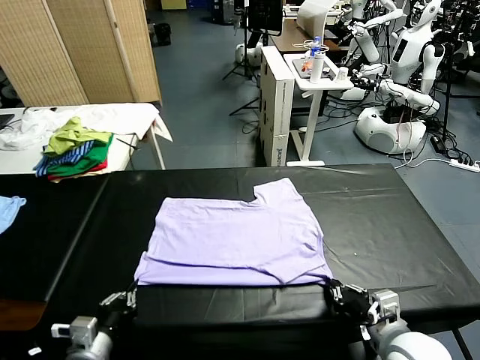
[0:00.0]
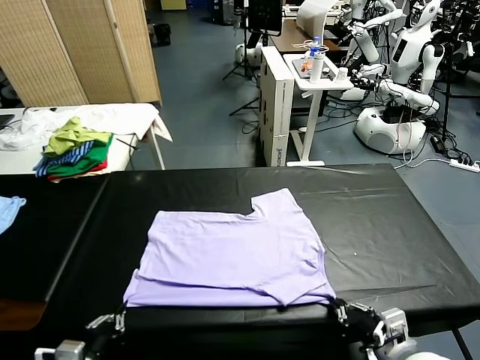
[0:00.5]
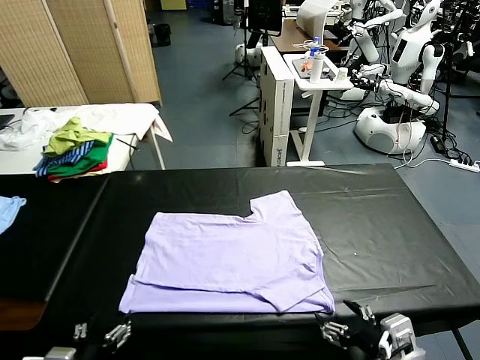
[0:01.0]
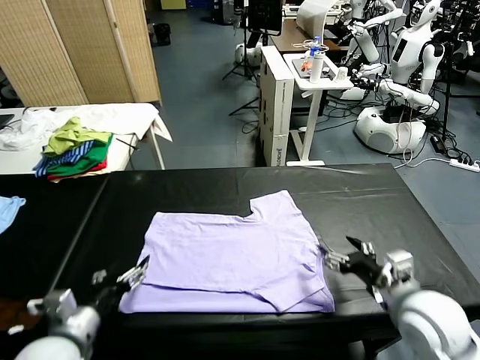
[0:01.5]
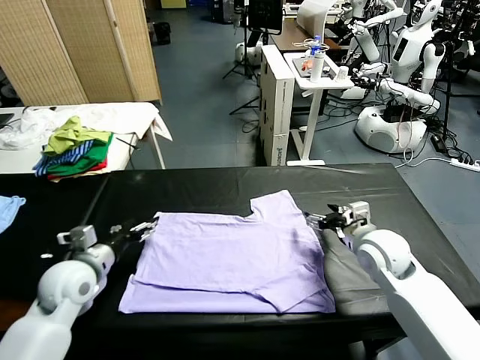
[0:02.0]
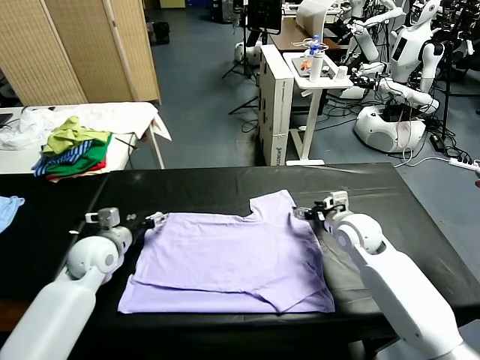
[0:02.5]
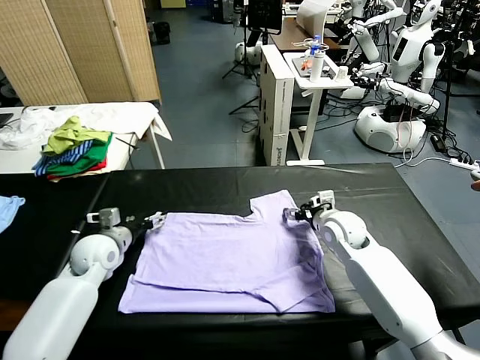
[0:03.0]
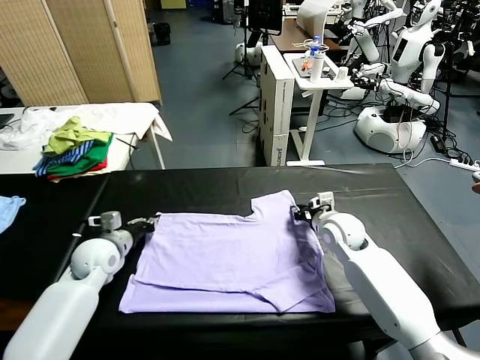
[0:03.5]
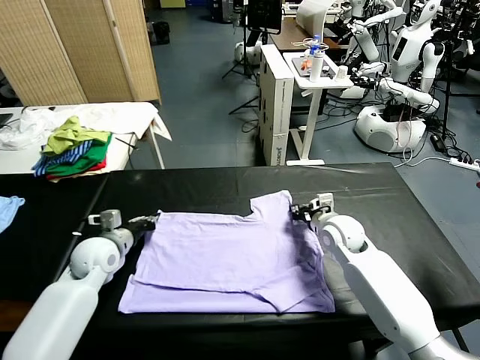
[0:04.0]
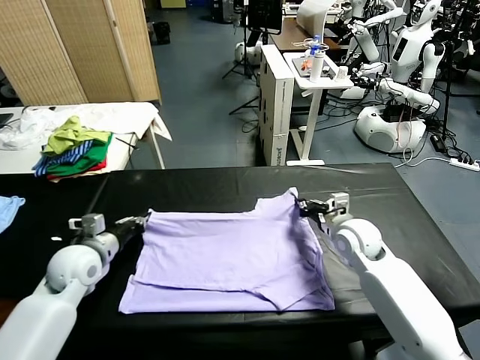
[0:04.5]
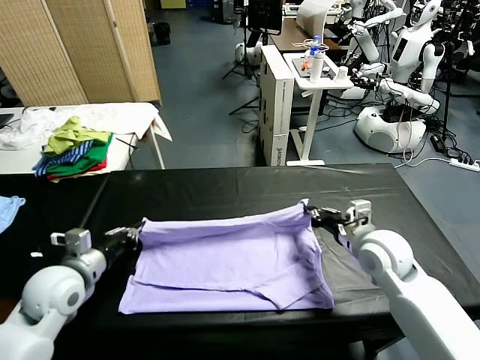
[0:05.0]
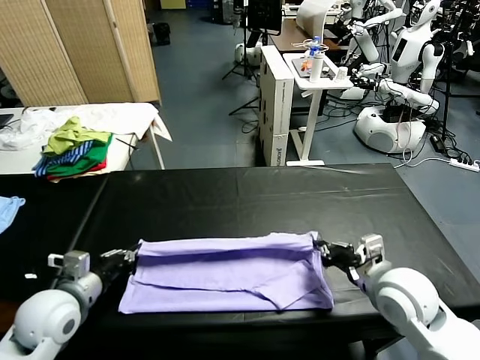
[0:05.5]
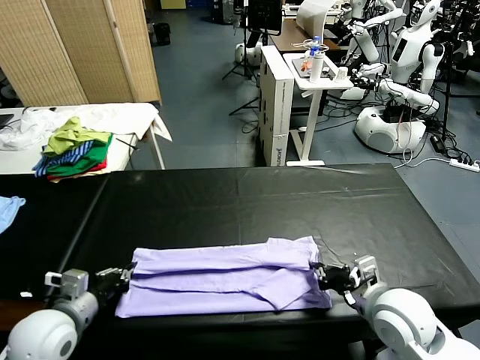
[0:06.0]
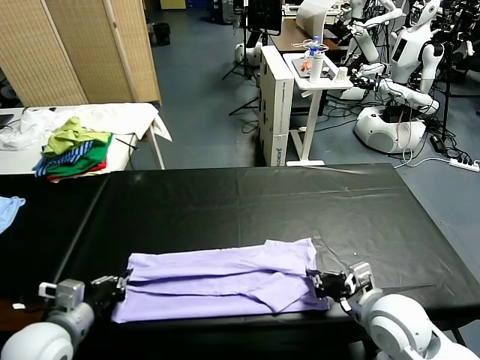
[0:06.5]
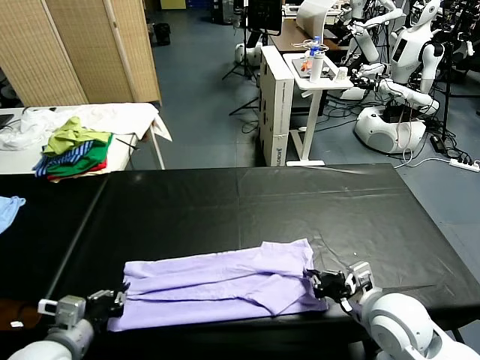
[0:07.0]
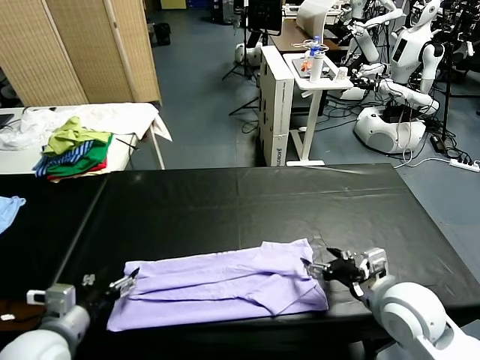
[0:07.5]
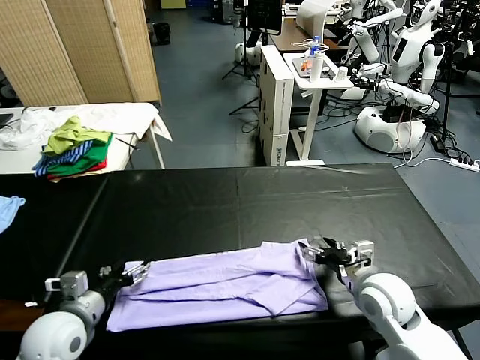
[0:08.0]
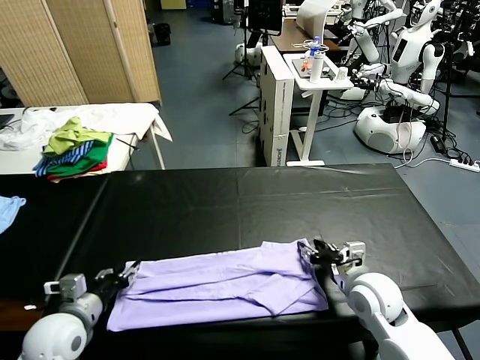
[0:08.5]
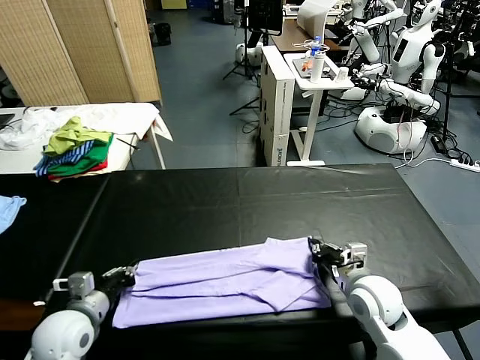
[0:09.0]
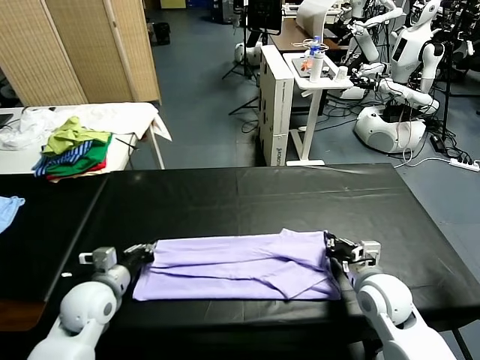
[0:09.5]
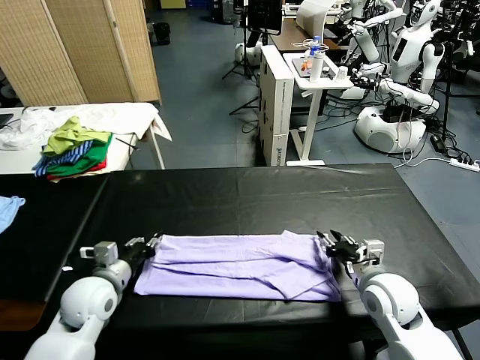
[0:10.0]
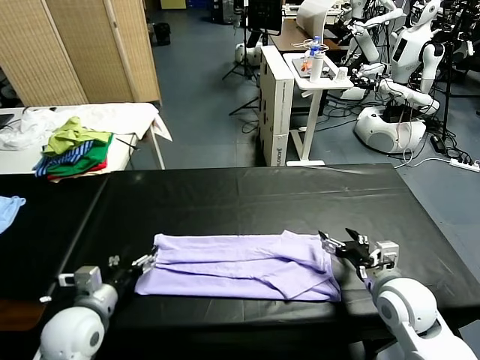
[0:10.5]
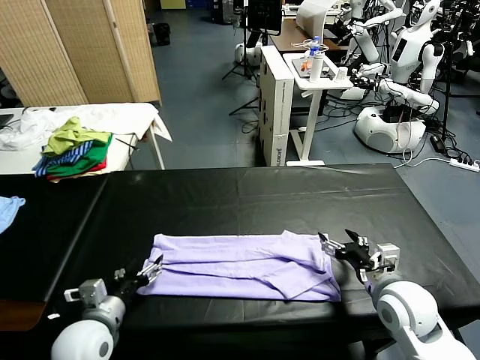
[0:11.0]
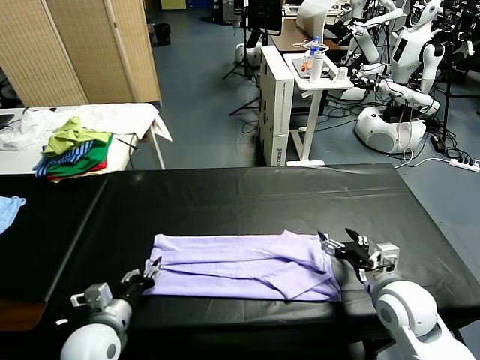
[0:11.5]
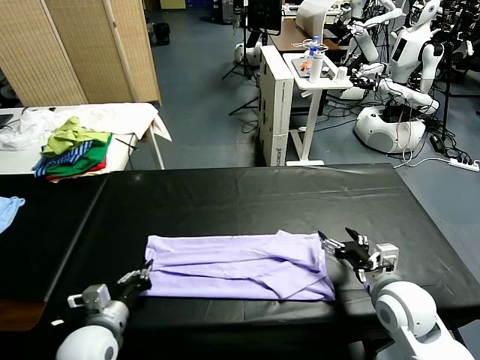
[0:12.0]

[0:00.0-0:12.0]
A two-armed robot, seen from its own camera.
Task of the whole recording: fold and organize the clothes.
Step, 0:01.0 to 0:04.0: use both grippers simultaneously to clamp the upper edge of the clothing fabric.
Step, 0:04.5 to 0:07.0: use both grippers to drag the upper edge of the fabric backward and fold it over the lower edge.
Step, 0:07.5 to 0:11.5: use the left gripper to clamp the left edge of the fabric.
0:00.0 to 0:02.0: The grippers both shift forward by about 20 cm. The right gripper opens, while the left gripper opens its fingers.
0:02.0 to 0:04.0: The left gripper is displaced forward by roughly 5 cm, and closes. Meanwhile the right gripper closes its fingers.
0:04.0 to 0:06.0: Both grippers move backward, some 20 cm.
0:06.0 to 0:08.0: The right gripper heads forward, covering approximately 5 cm, and opens; the left gripper opens up.
0:08.0 to 0:10.0: The right gripper closes, then reopens. The left gripper is displaced forward by approximately 5 cm, and closes up.
0:10.0 to 0:12.0: The left gripper heads backward, covering about 10 cm, and closes.

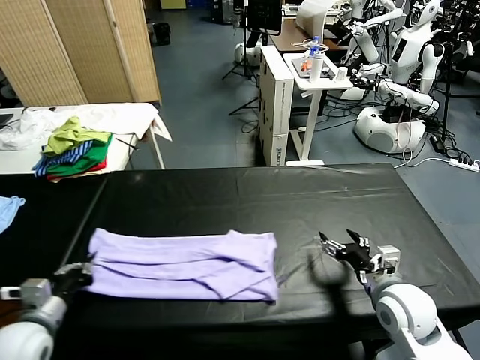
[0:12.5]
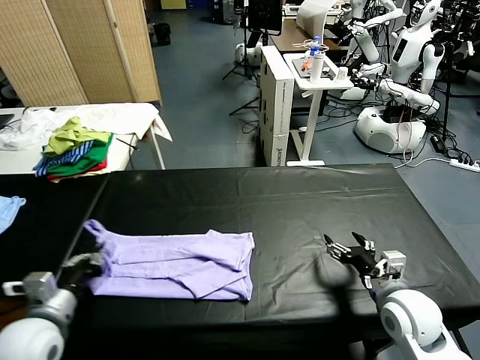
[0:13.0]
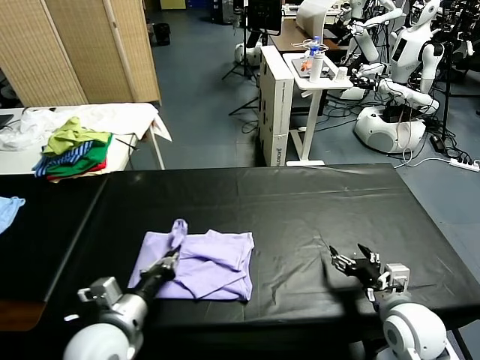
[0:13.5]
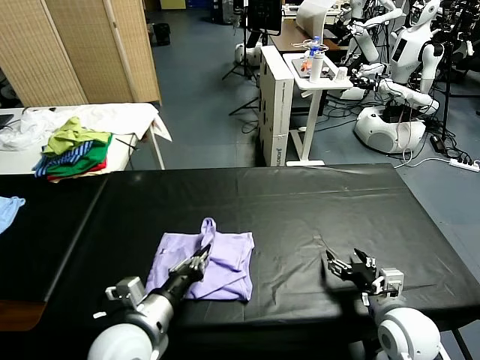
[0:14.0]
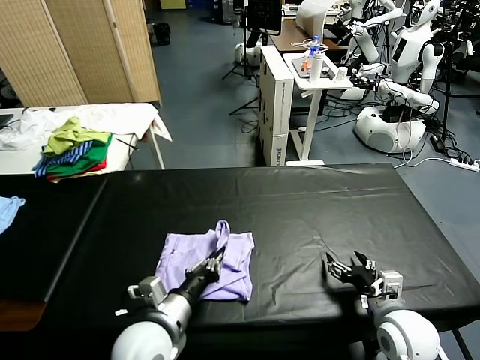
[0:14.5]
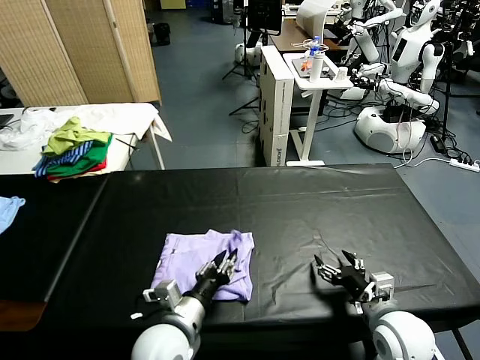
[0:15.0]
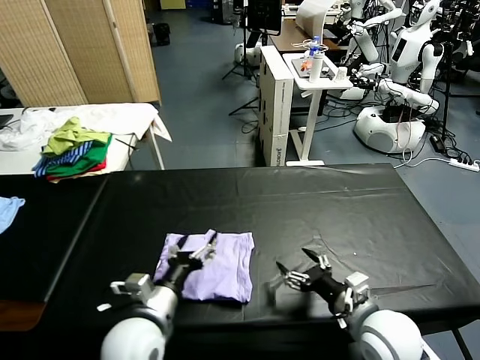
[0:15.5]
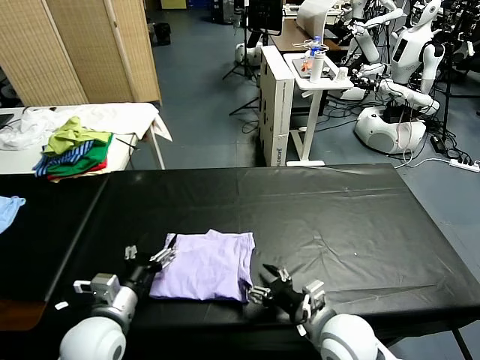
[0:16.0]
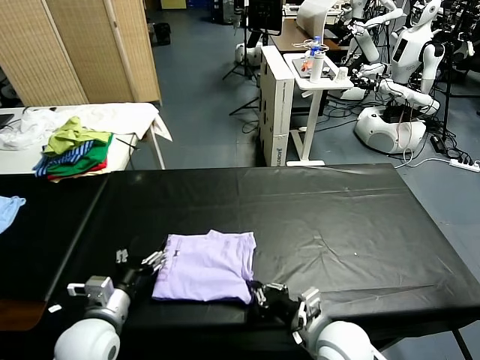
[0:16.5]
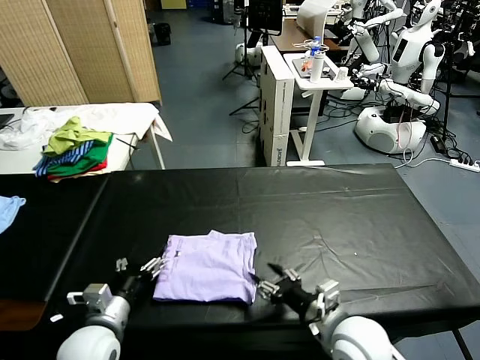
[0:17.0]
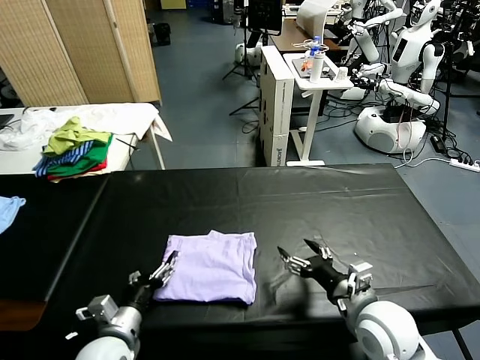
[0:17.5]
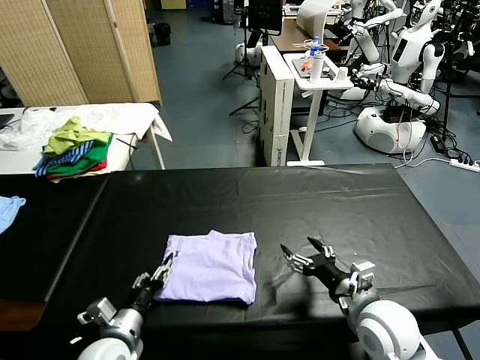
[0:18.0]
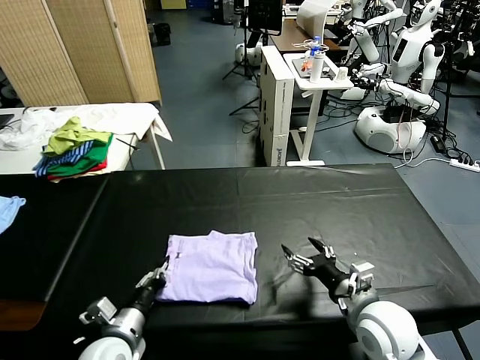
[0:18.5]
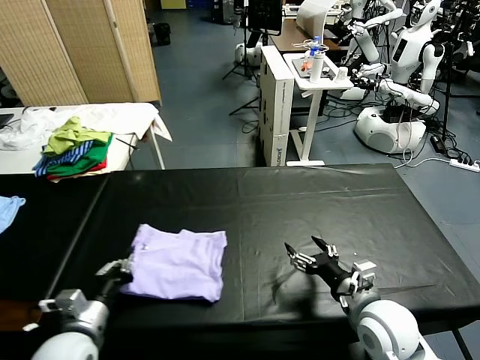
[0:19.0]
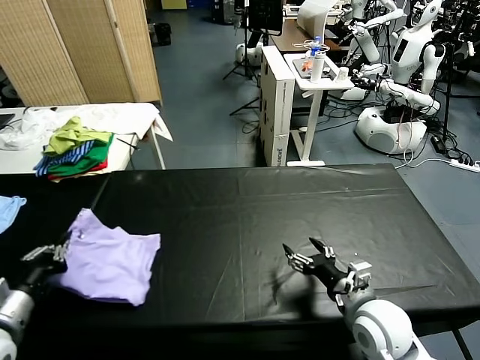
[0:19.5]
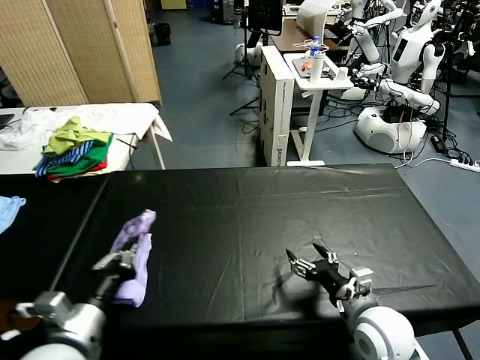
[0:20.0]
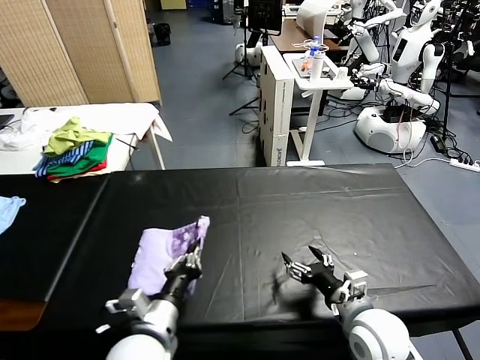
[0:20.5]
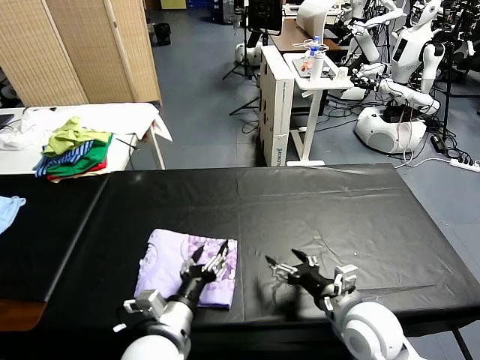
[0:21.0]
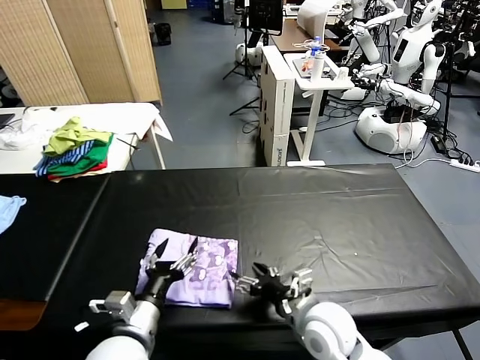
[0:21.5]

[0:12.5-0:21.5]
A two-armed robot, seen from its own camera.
Task of the whole recording: fold and organize the clothes.
Step, 0:12.5 to 0:15.0: use the left gripper to drag the left edge of the fabric to the left and folds it over the right edge.
Step, 0:15.5 to 0:21.0: Flip the folded clothes over with left gripper.
0:12.5 to 0:14.5: The left gripper is displaced to the right by approximately 25 cm.
0:14.5 to 0:17.0: The two grippers go approximately 10 cm to the left. The left gripper opens up; the right gripper closes, then reopens.
0:17.0 to 0:19.5: The left gripper moves to the left and upward, some 15 cm, and closes.
0:19.5 to 0:21.5: The right gripper heads to the left, covering roughly 10 cm; the left gripper moves to the right, about 20 cm, and opens its fingers.

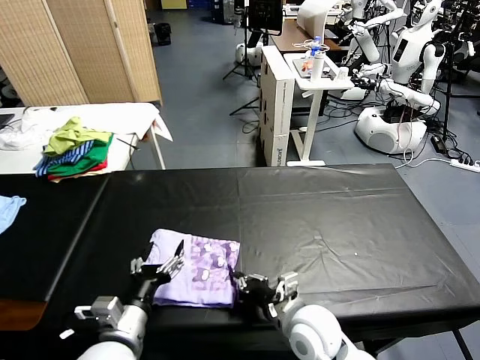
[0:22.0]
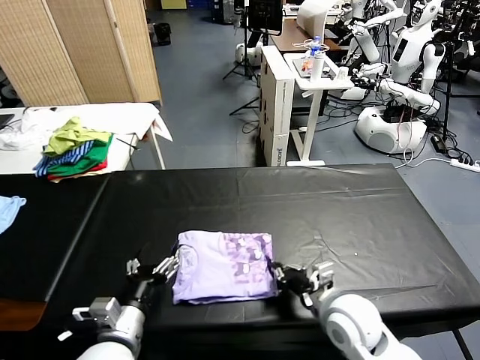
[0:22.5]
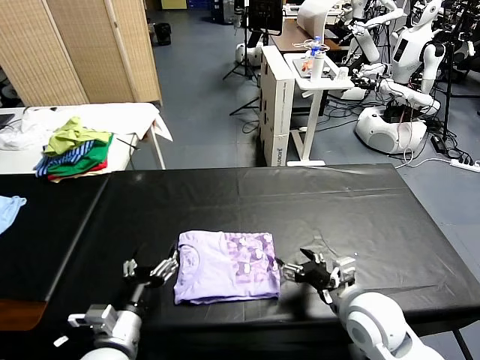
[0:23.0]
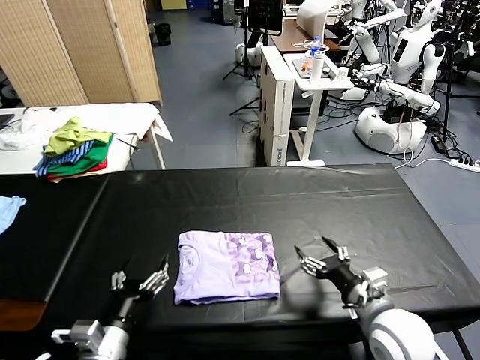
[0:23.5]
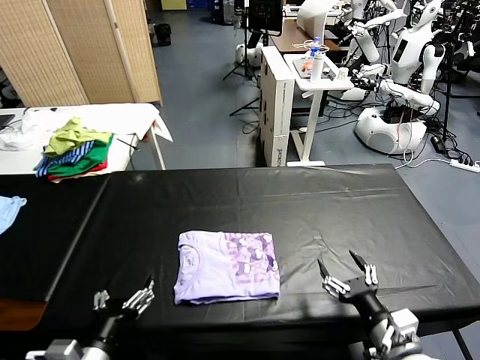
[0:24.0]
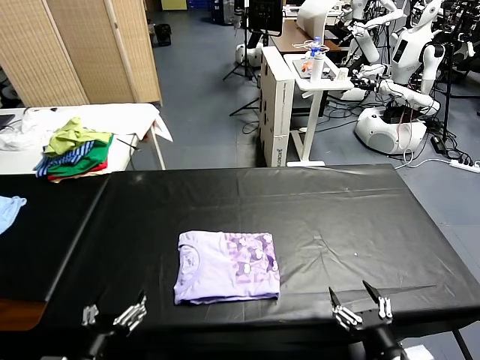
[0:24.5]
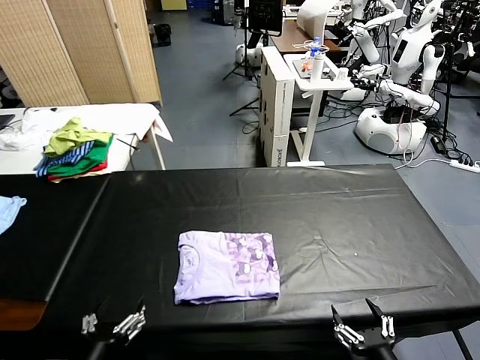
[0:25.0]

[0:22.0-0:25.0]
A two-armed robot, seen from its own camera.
Task of the whole recording: fold and organize the clothes.
Step, 0:22.0 to 0:23.0: Drag the clothes to the center of the table.
0:22.0 to 0:23.5: The right gripper moves to the right and upward, roughly 15 cm, and opens up.
0:23.5 to 0:25.0: The right gripper shifts some 15 cm backward; the left gripper moves backward, some 5 cm.
